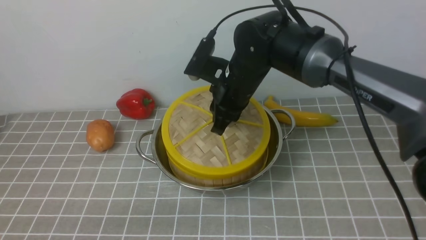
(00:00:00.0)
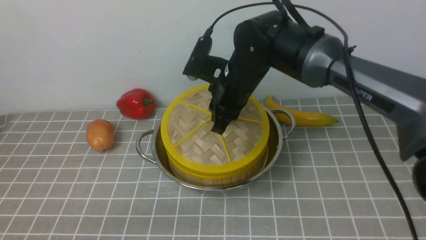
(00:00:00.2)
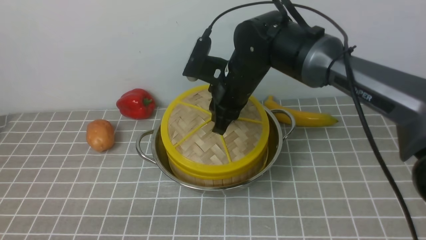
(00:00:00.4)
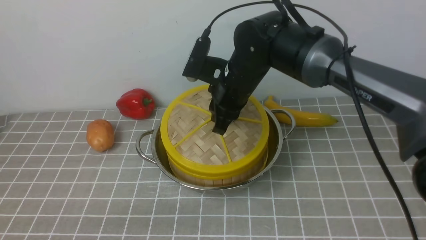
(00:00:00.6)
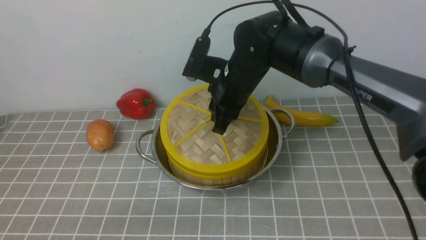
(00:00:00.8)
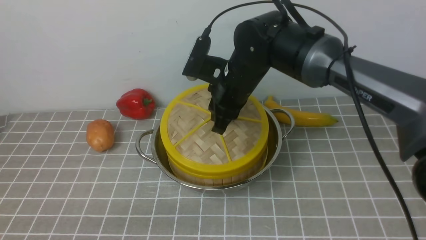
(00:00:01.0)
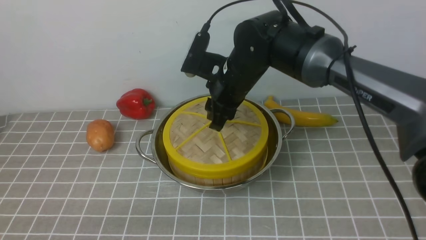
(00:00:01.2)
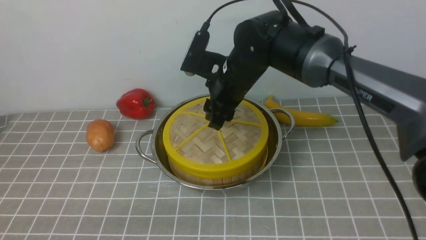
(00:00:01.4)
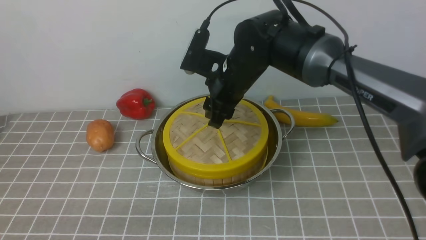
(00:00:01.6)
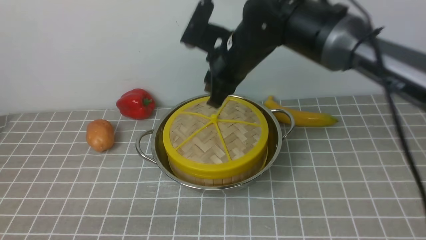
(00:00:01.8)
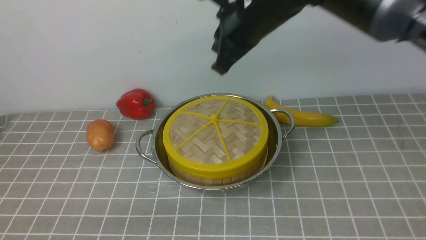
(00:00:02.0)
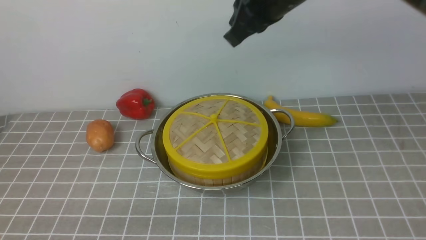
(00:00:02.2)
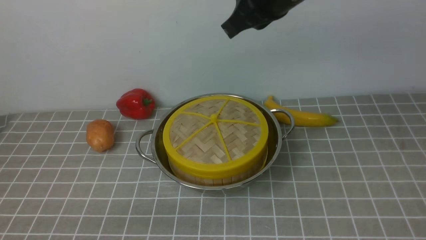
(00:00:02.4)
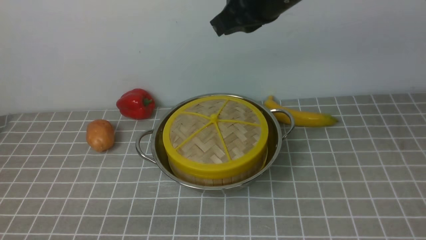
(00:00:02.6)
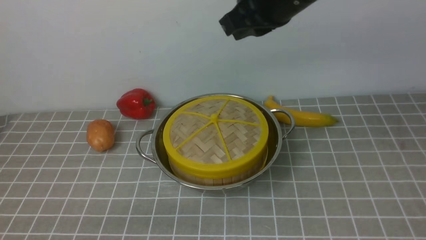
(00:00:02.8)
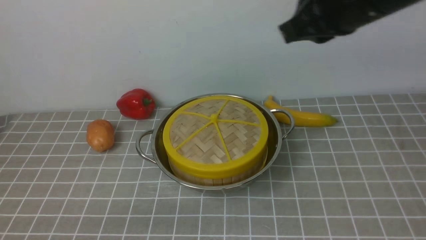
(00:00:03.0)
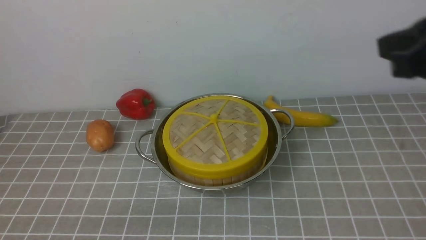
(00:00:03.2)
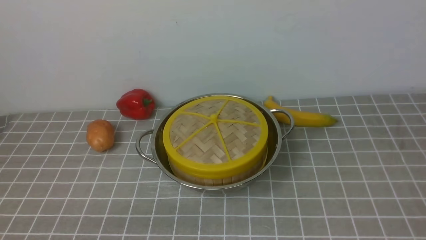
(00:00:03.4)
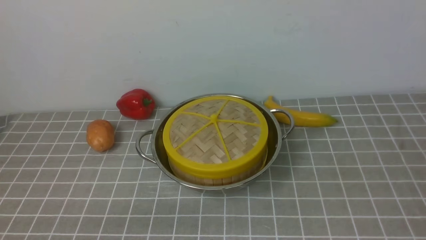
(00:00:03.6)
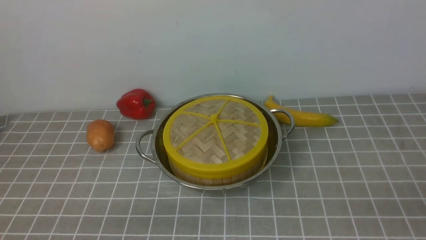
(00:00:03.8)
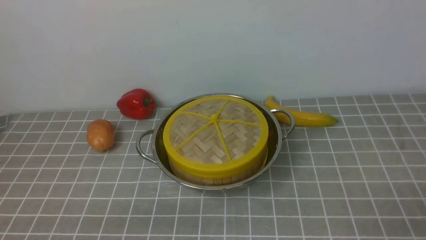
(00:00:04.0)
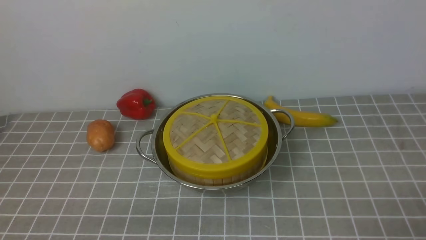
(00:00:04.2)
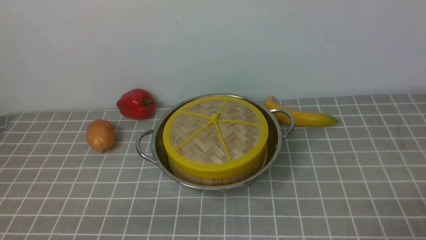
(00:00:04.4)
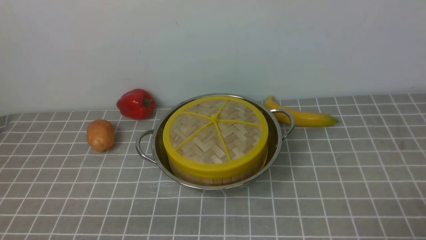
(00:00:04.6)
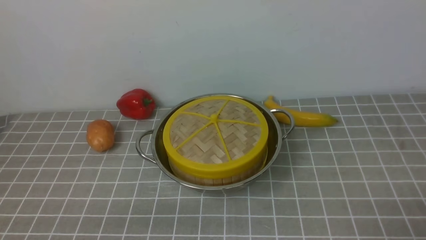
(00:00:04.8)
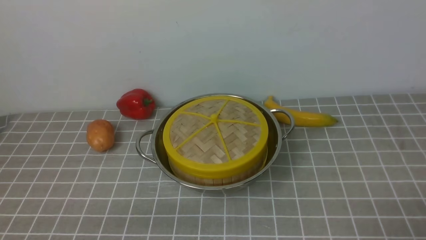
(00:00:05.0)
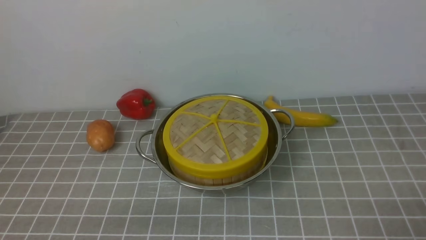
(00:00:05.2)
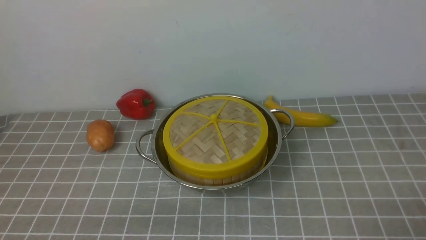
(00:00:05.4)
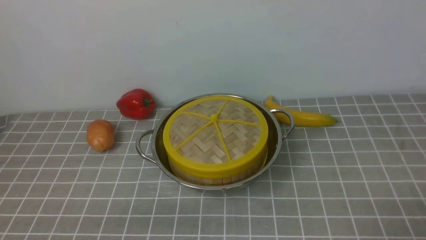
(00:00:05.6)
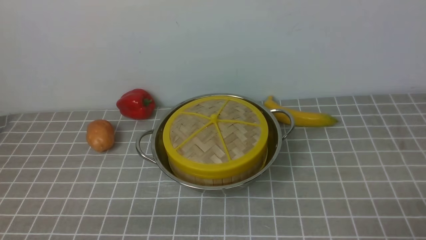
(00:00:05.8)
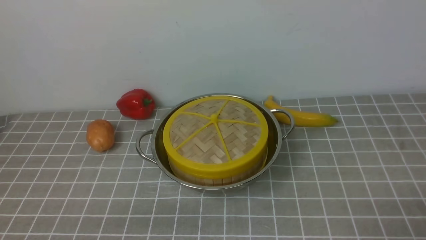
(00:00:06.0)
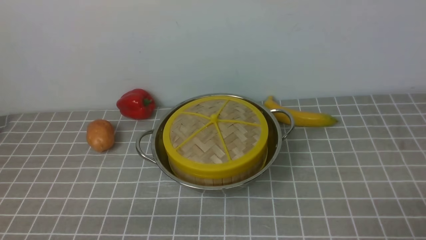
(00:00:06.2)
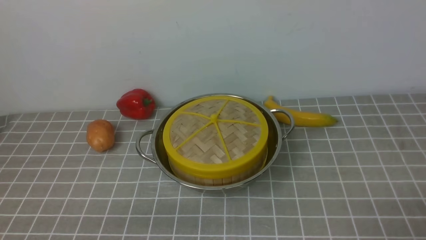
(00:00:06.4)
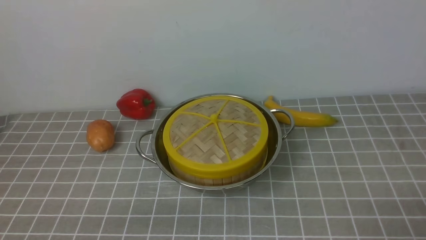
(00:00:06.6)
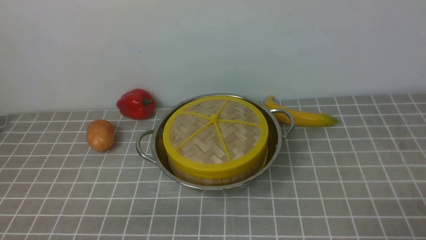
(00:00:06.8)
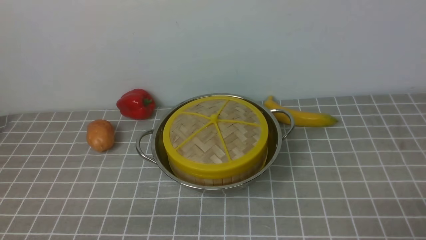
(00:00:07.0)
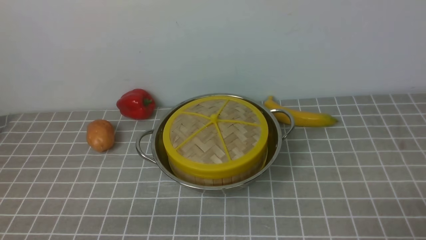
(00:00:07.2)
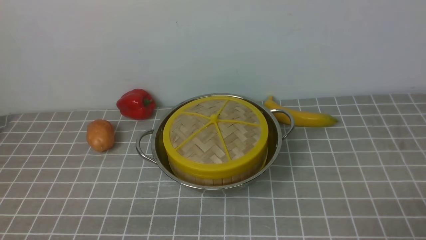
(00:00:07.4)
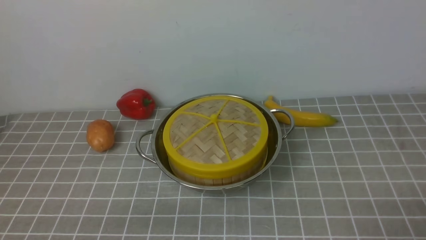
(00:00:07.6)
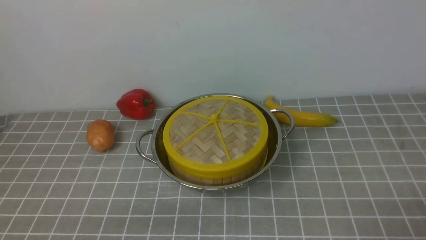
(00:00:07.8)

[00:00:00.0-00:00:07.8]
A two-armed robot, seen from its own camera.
Task of the whole recording: place the steamer in the pot on the grey tablecloth, and put the lid on the steamer.
00:00:00.0 to 00:00:01.6: The right gripper opens.
00:00:01.6 to 00:00:03.2: The right gripper heads to the right, backward and upward, covering approximately 35 cm, and closes.
00:00:03.2 to 00:00:04.6: The right gripper goes roughly 25 cm downward and backward, and opens.
00:00:04.6 to 00:00:07.8: The two grippers keep their place.
